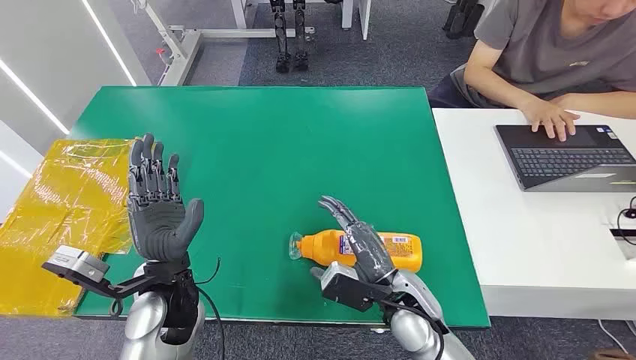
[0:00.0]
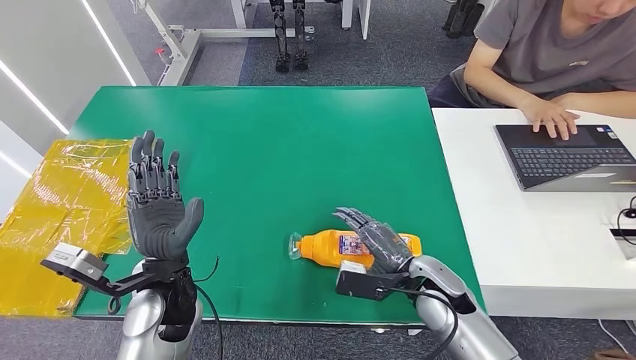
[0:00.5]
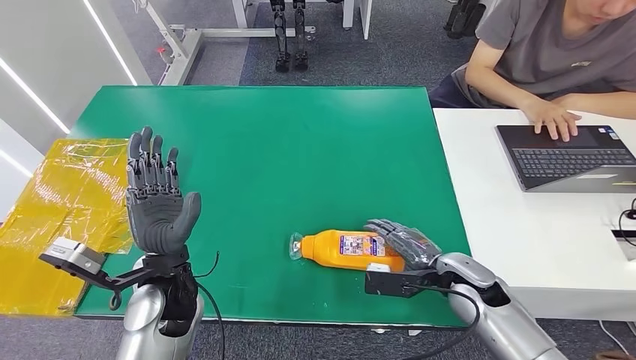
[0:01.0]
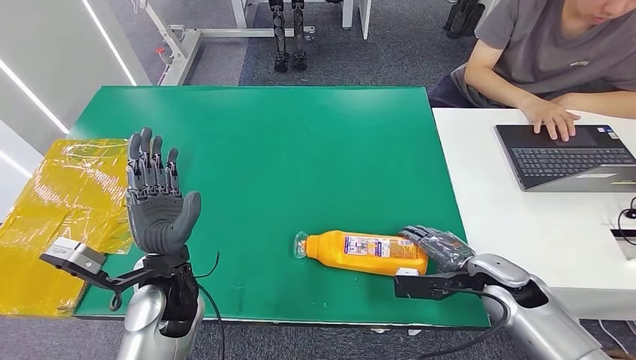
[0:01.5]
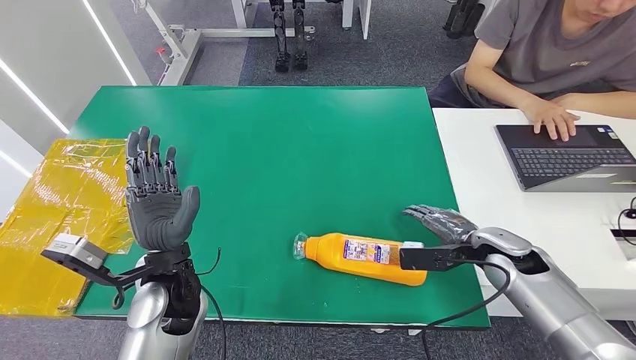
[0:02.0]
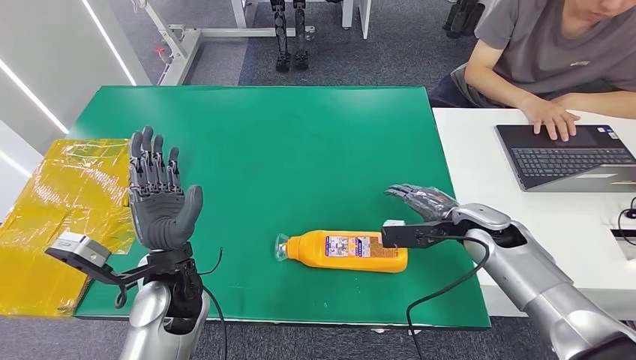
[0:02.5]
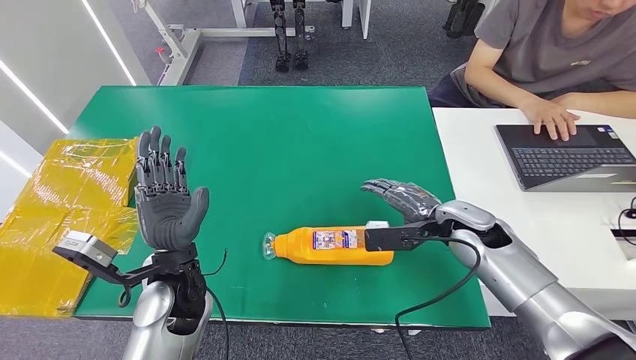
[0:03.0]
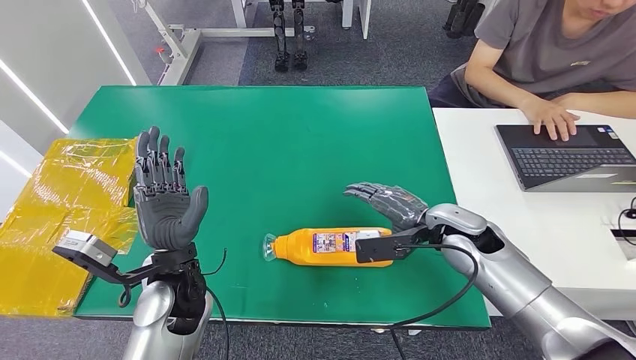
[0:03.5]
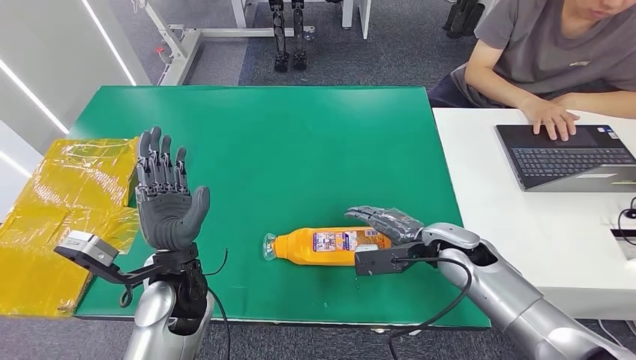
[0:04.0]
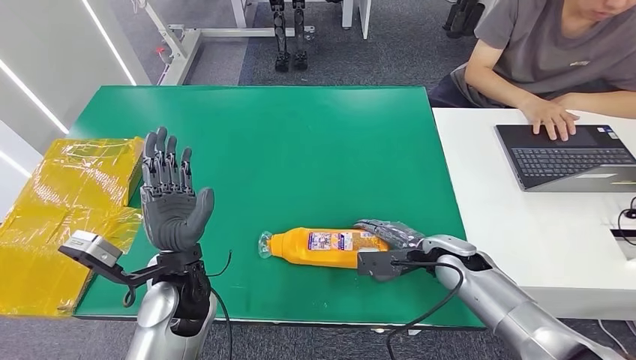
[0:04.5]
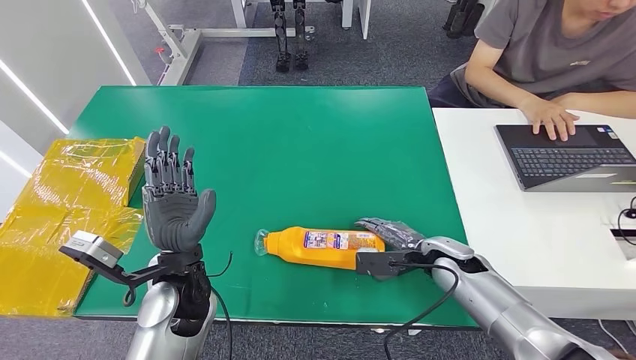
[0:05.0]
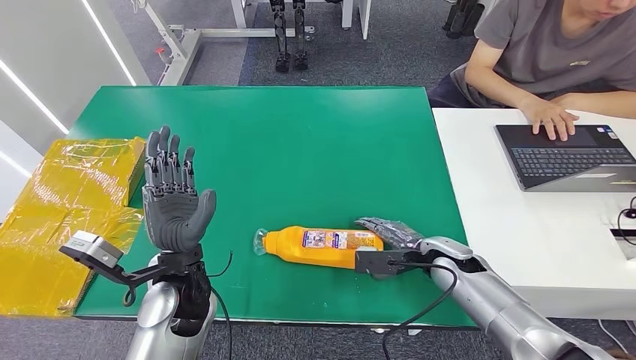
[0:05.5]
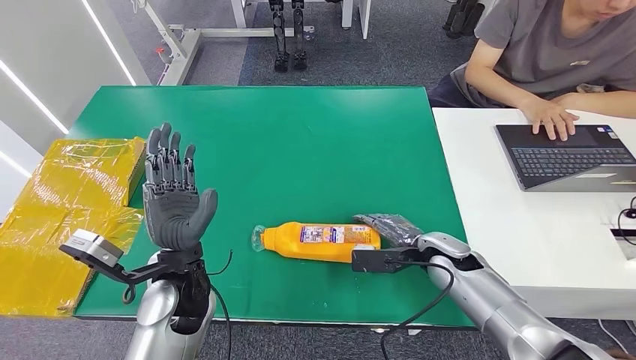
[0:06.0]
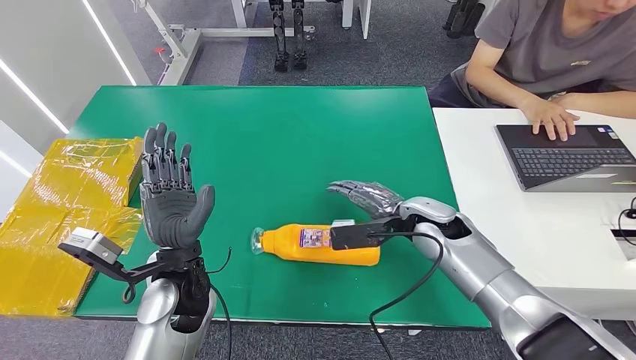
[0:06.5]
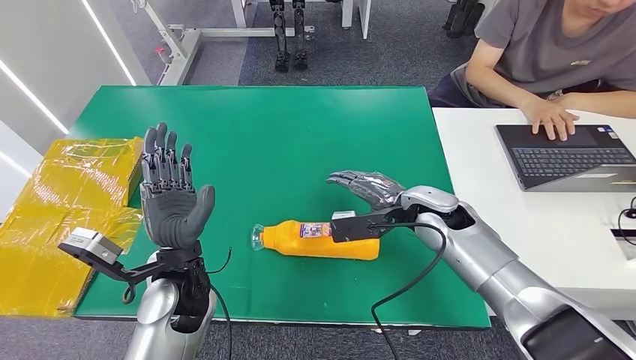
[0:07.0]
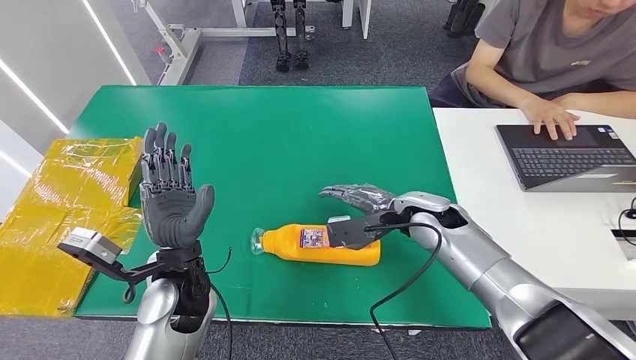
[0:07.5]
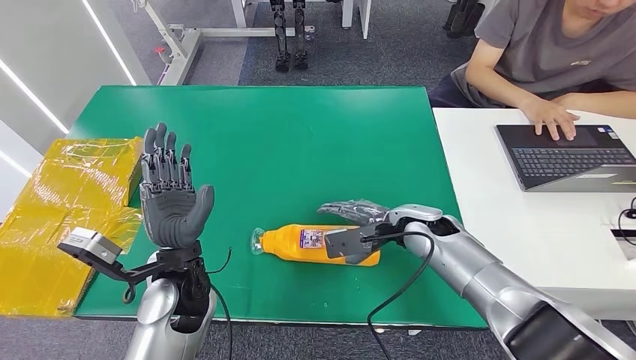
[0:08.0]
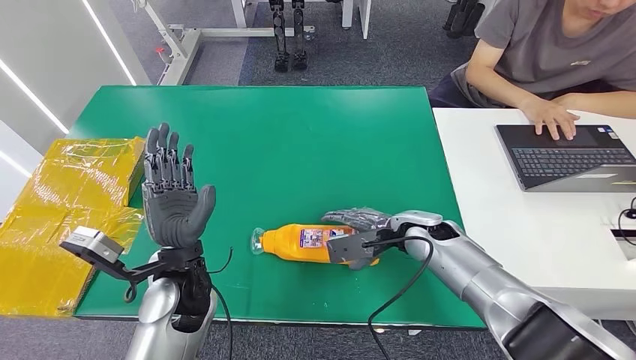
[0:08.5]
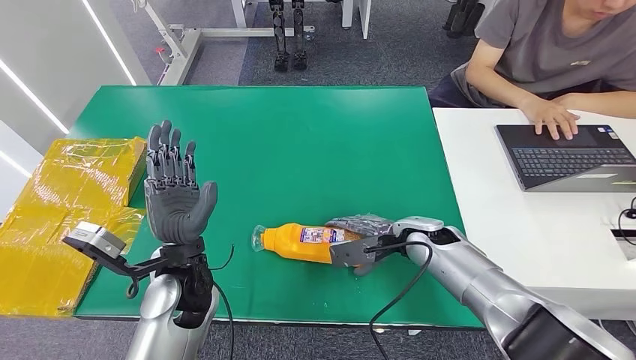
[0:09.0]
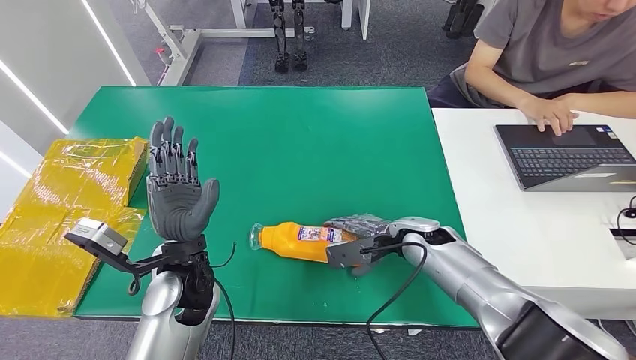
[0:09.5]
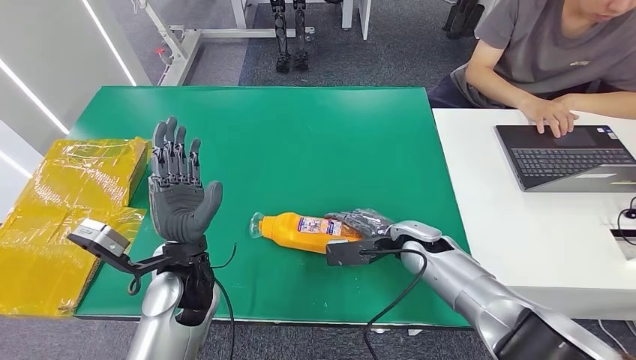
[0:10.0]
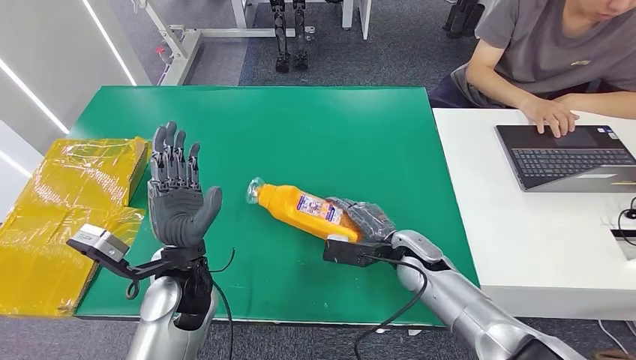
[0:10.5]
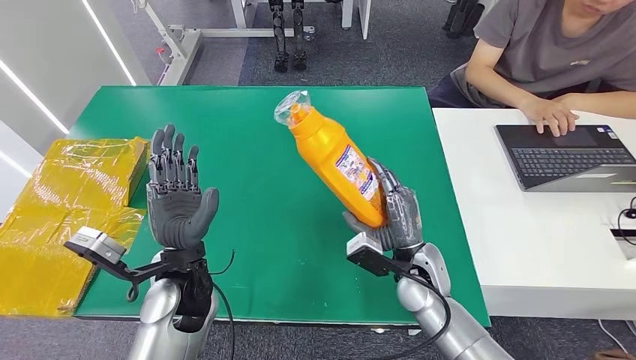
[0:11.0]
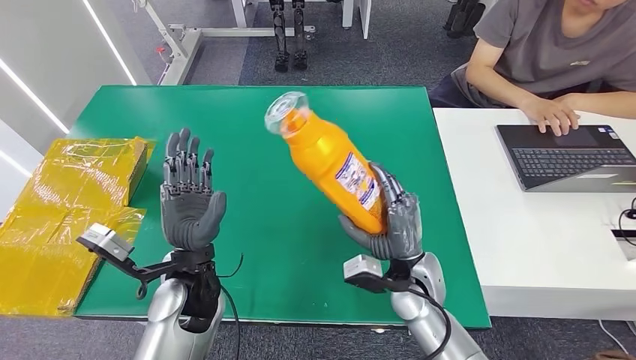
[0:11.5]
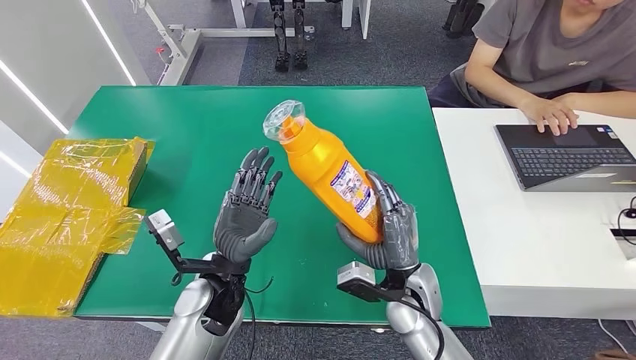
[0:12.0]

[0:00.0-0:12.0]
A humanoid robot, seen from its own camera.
0:02.0 to 0:04.0: The right hand moves to the left, roughly 10 cm.
0:04.0 to 0:06.0: There are only small adjustments of the hands.
0:06.0 to 0:08.0: The right hand moves to the left and upward, about 10 cm.
0:08.0 to 0:10.0: The hands make only small movements.

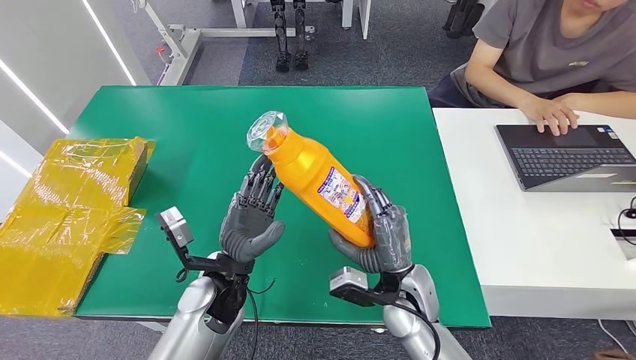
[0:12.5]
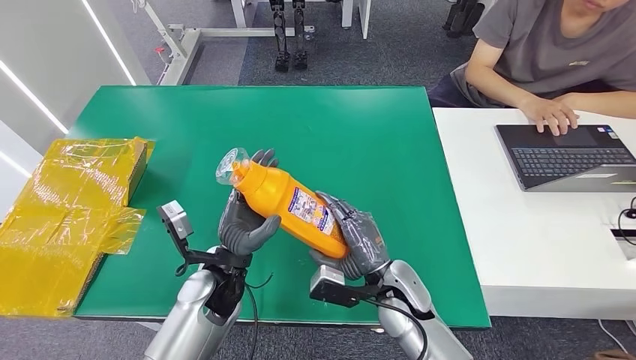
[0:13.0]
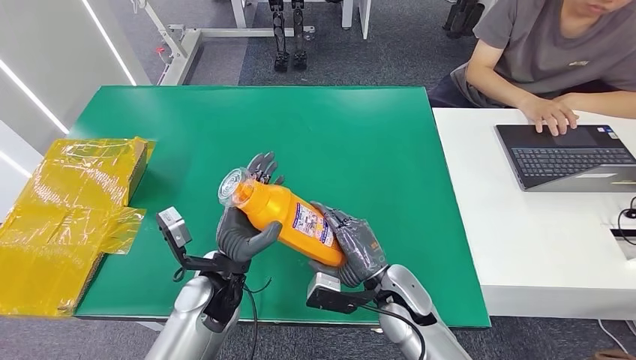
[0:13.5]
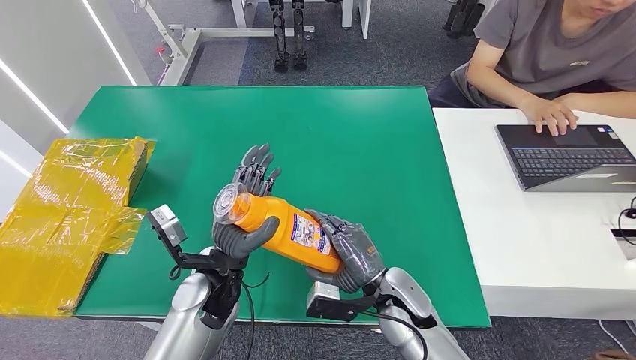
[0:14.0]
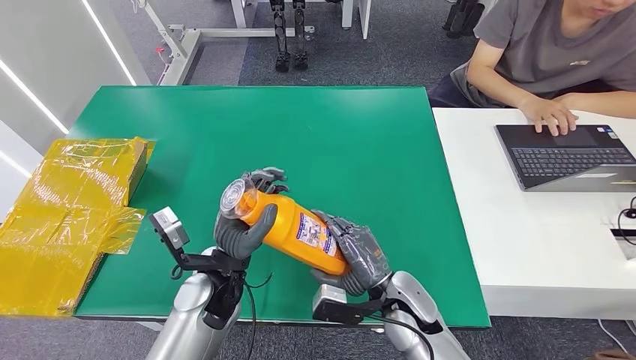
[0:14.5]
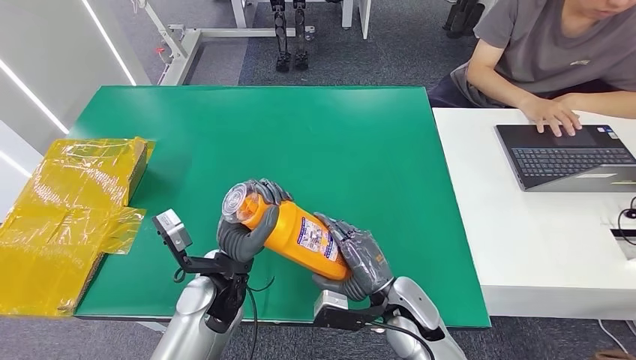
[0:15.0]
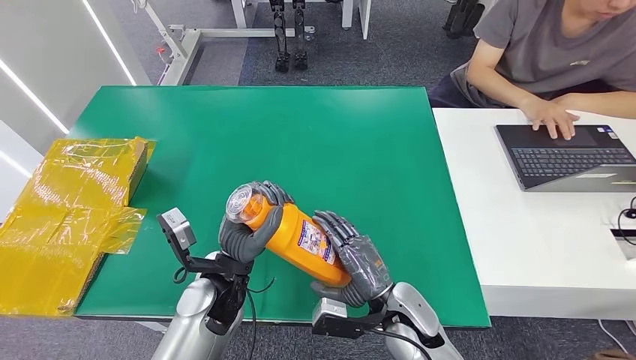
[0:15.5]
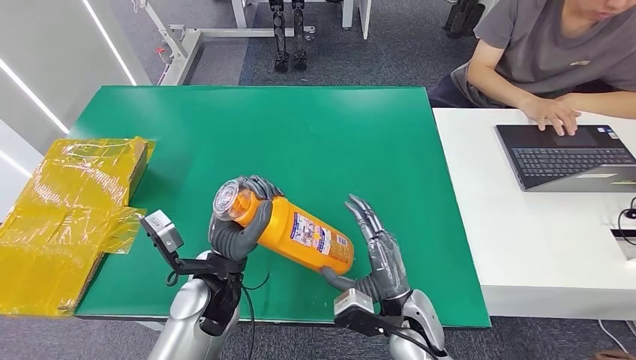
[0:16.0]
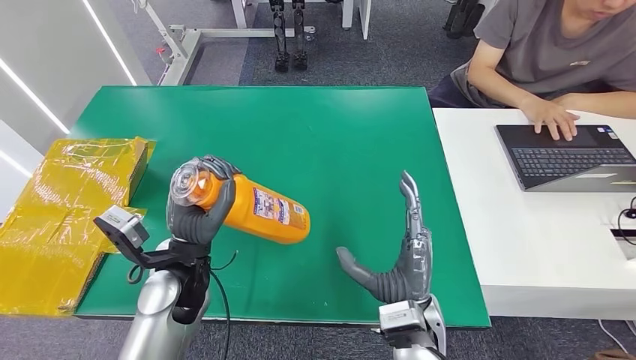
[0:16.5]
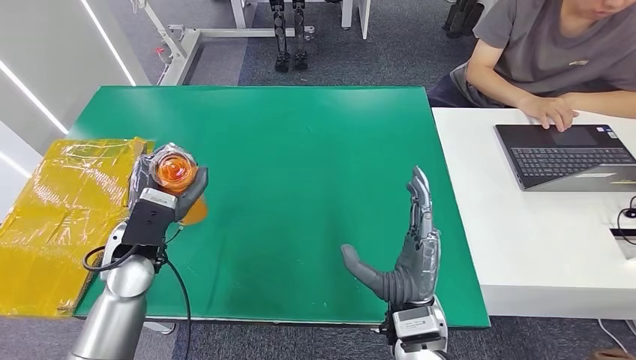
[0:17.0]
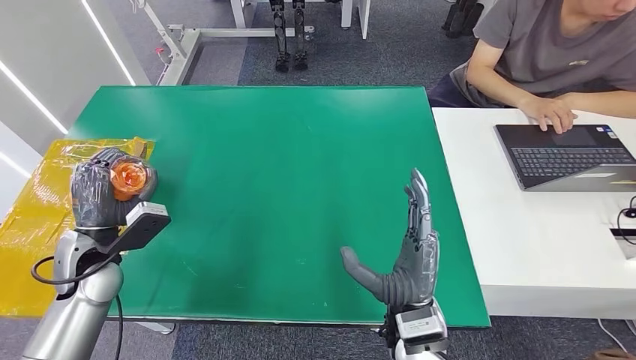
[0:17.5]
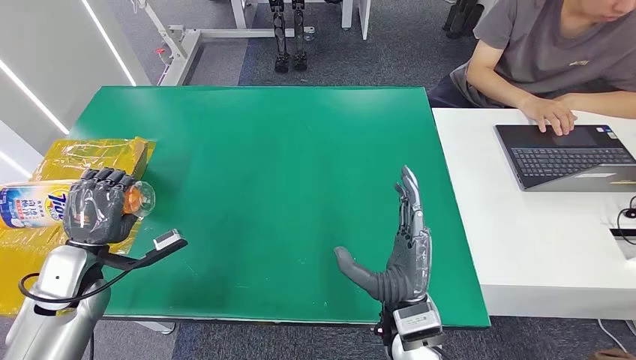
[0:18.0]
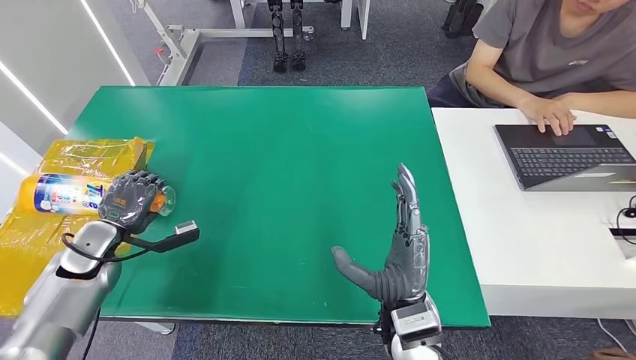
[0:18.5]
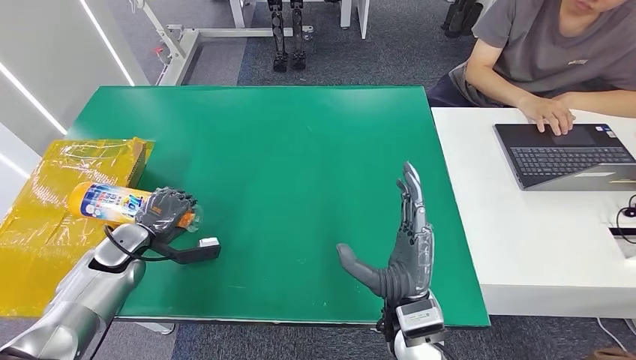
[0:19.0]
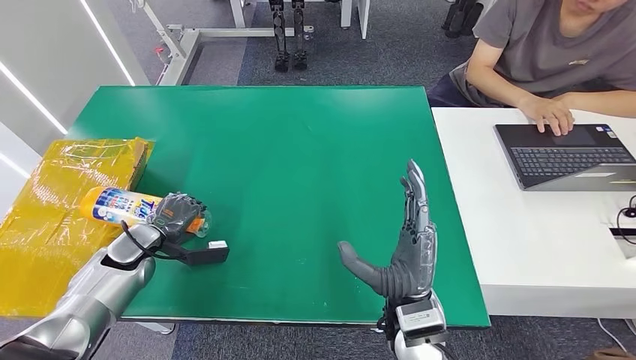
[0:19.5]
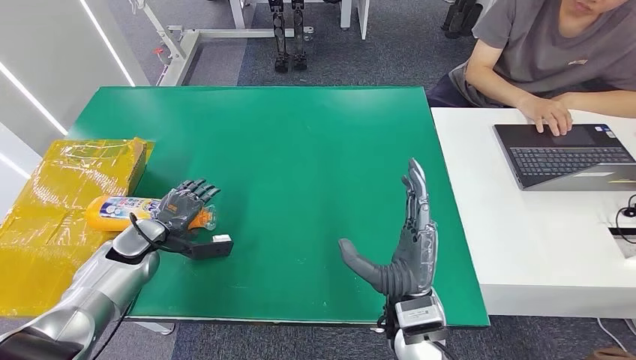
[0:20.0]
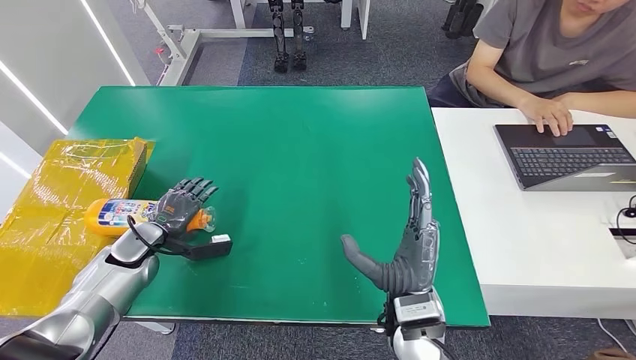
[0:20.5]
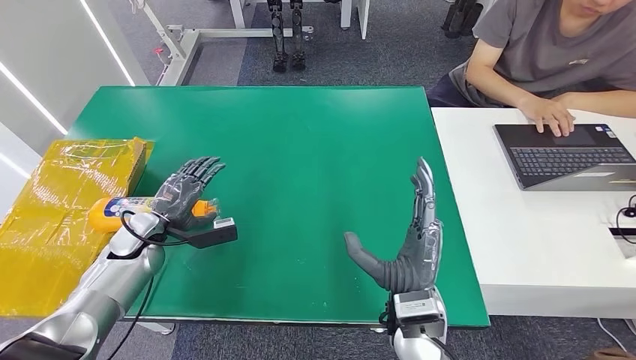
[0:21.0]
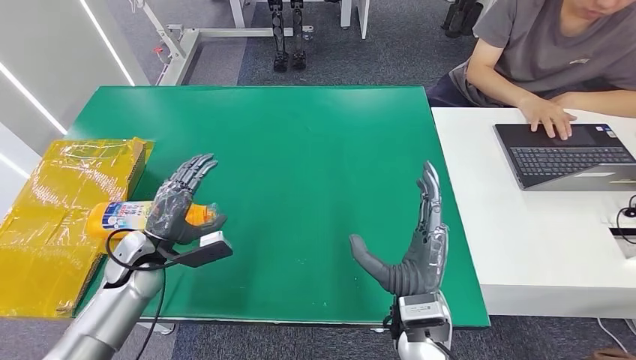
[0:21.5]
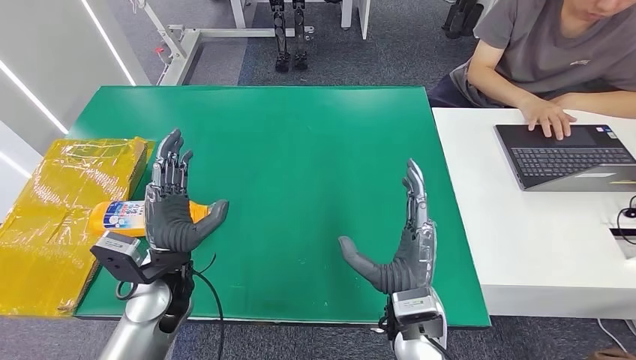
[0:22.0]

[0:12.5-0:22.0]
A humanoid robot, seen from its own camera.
Step, 0:13.0 to 0:22.0: Turn the bottle to the front side.
0:14.5 to 0:16.5: The right hand travels upward by roughly 5 cm. Meanwhile the left hand ends up approximately 5 cm from where it was.
0:16.5 to 0:18.0: The left hand heads to the left, covering some 20 cm.
0:18.0 to 0:20.0: The left hand shifts some 10 cm forward and downward.
0:20.0 to 0:22.0: The left hand moves to the right, backward and upward, roughly 20 cm.
